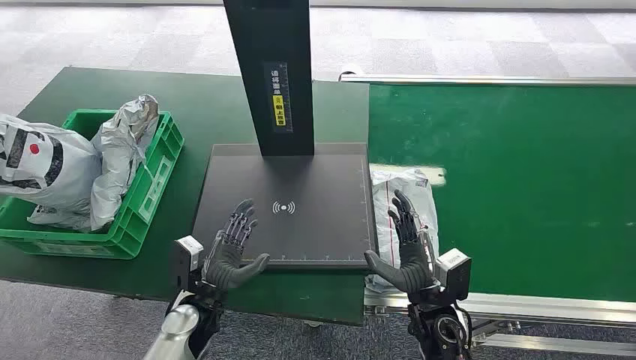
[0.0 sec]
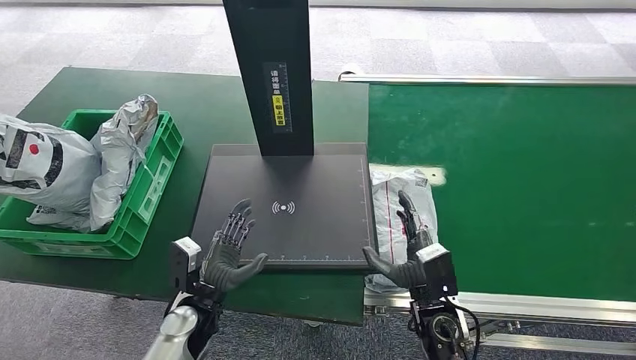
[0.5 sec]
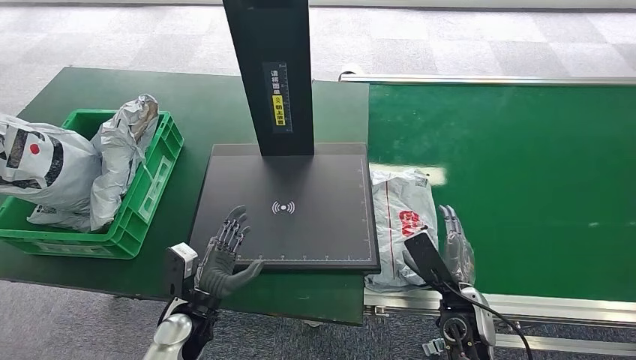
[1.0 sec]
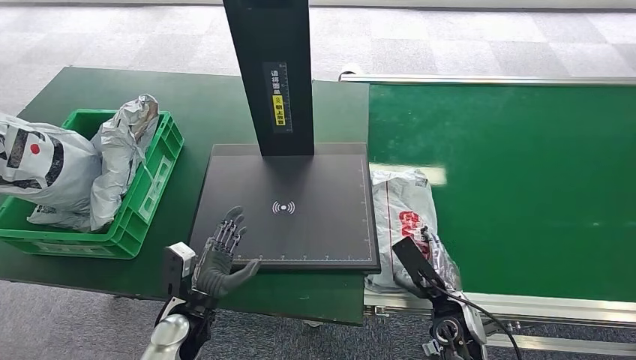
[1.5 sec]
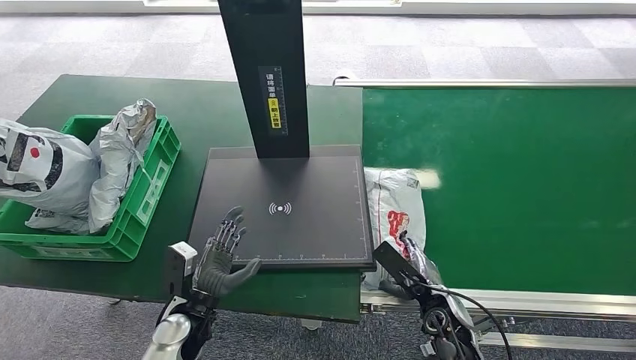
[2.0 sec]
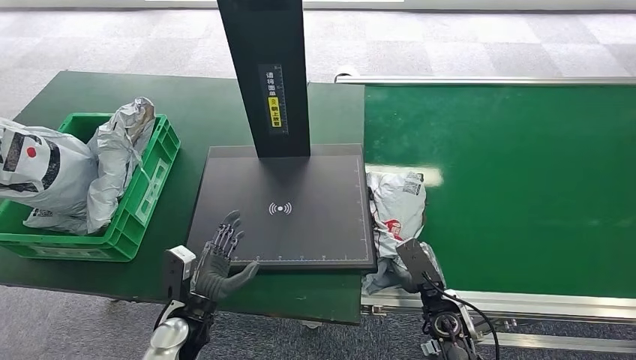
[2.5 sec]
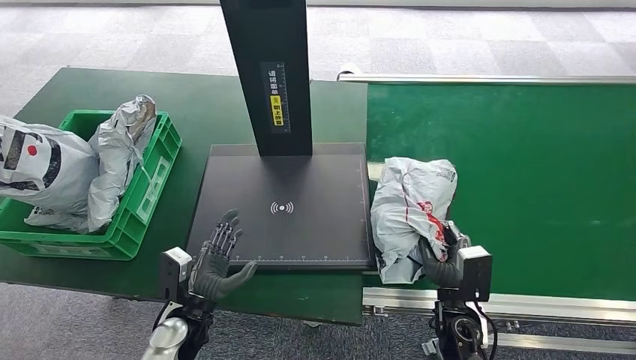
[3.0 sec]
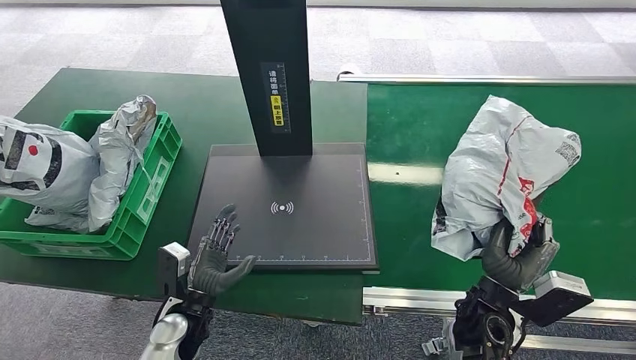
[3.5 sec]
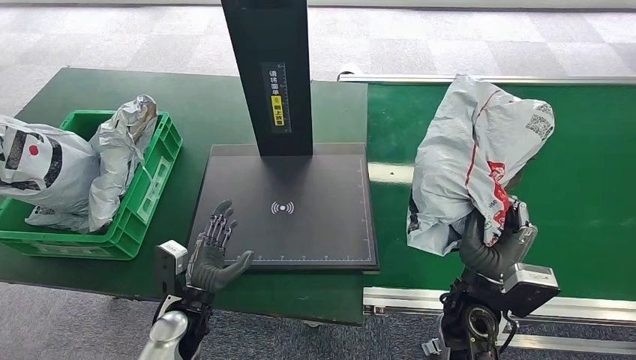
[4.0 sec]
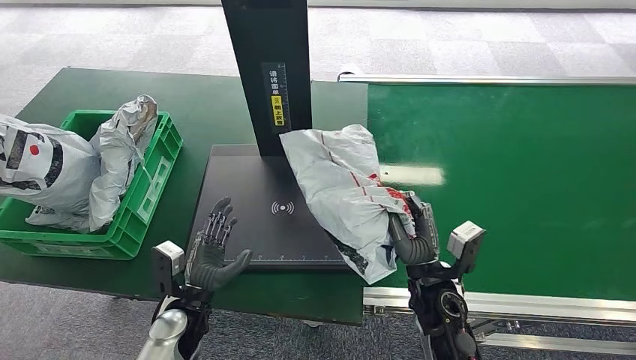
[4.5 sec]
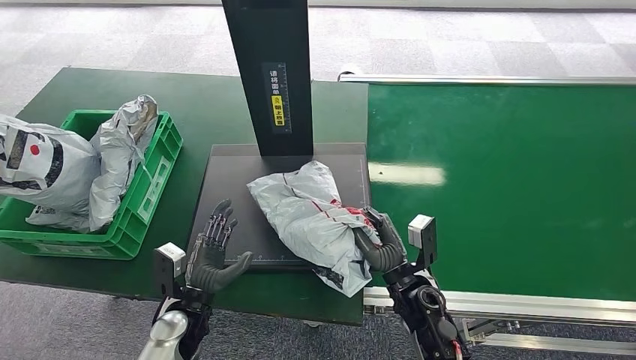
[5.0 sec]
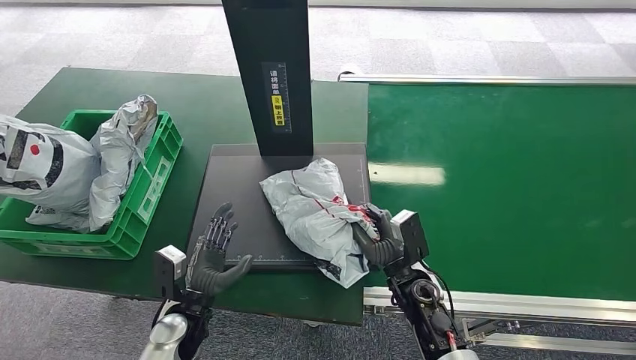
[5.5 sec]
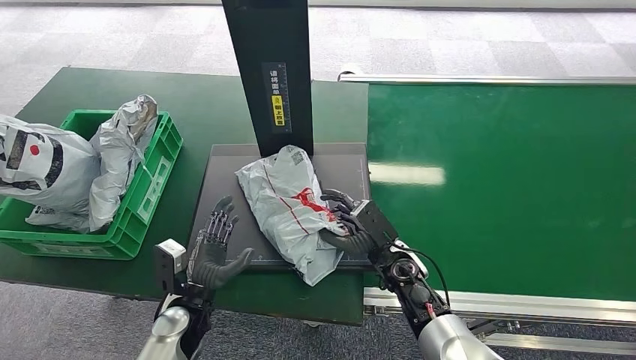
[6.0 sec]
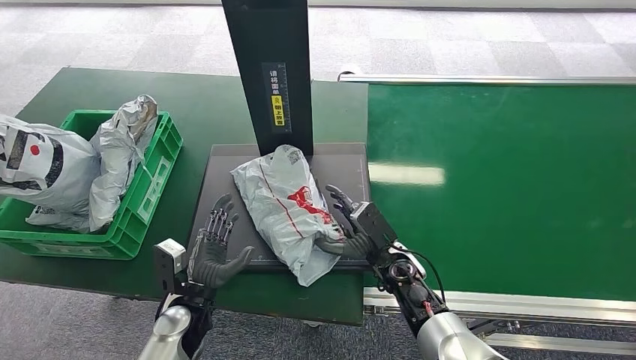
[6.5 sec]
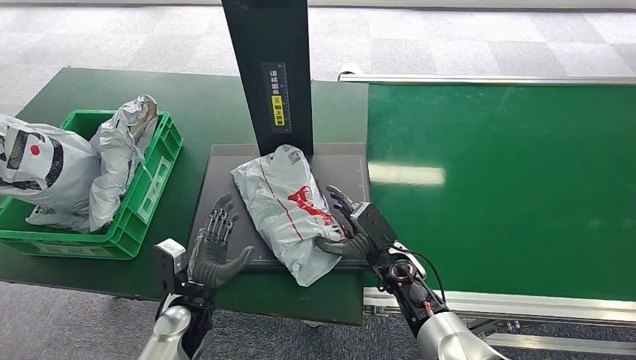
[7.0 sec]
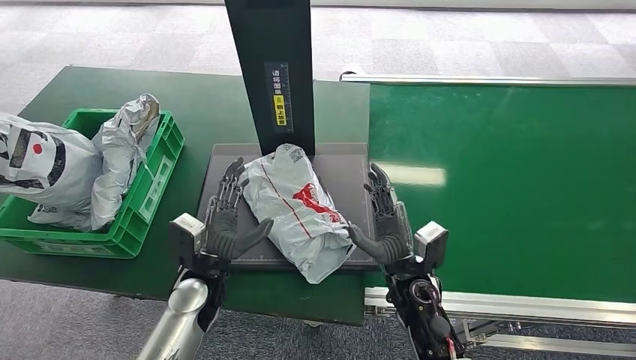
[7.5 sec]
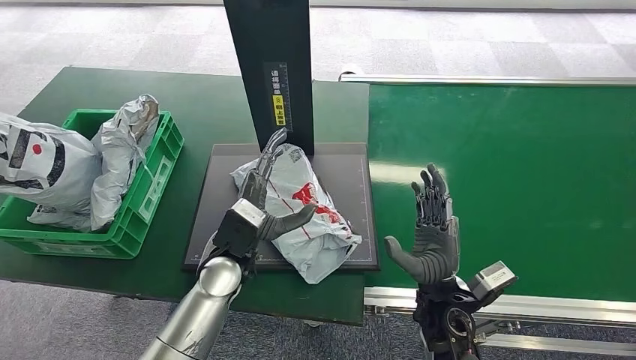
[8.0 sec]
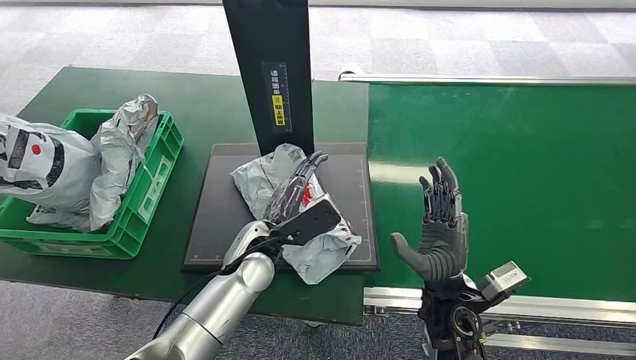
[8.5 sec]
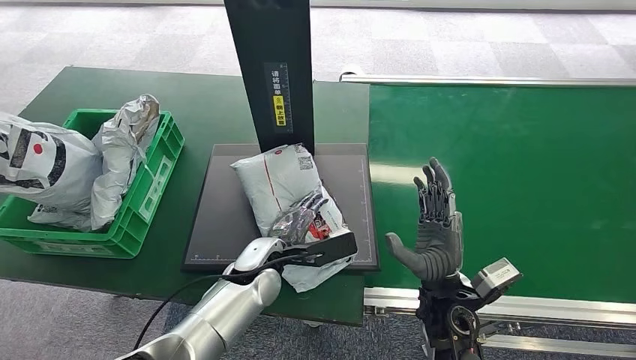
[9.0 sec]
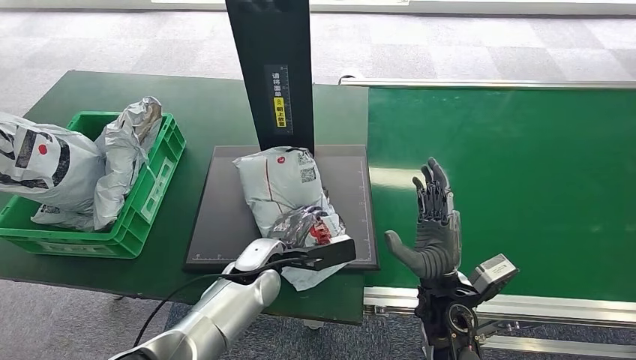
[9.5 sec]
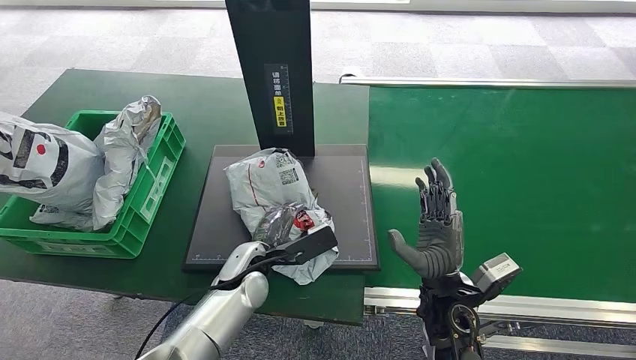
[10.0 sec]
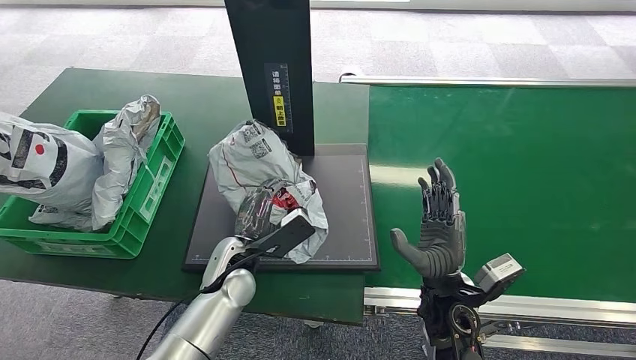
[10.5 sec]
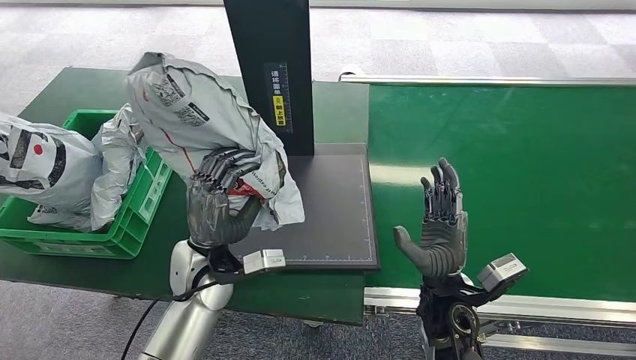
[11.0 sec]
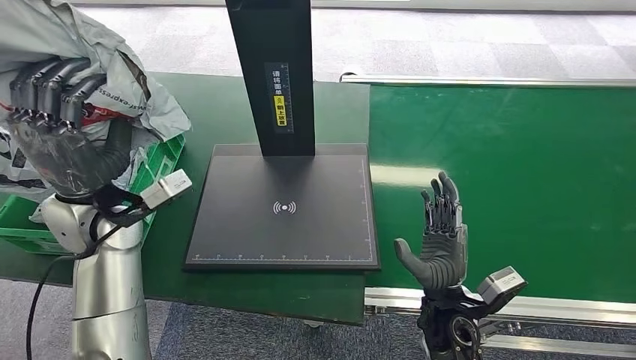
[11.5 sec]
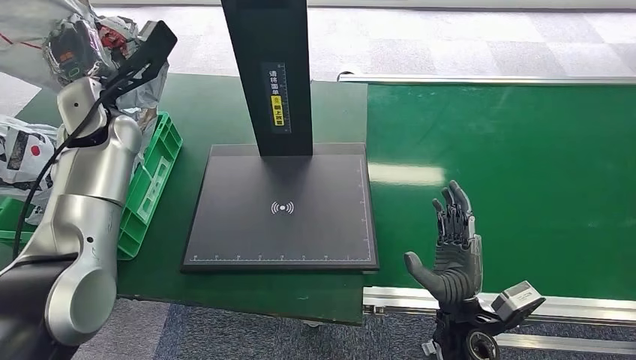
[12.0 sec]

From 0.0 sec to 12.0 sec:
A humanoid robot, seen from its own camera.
Step, from 0.0 sec to 3.5 sec: Pick up the package from the conveyor belt.
Step, from 4.5 sec to 8.0 sec: Place the package onto the inbound machine.
Step, from 8.5 sec to 11.5 sec: Pick up the package from the inbound machine.
From 4.0 sec to 6.0 sec: The right hand travels forward, to the left and downward by approximately 10 cm.
From 6.0 sec to 8.0 sec: The left hand goes roughly 15 cm upward, to the right and forward; the right hand is displaced backward by roughly 10 cm.
From 8.0 sec to 10.0 sec: The left hand shifts some 5 cm downward.

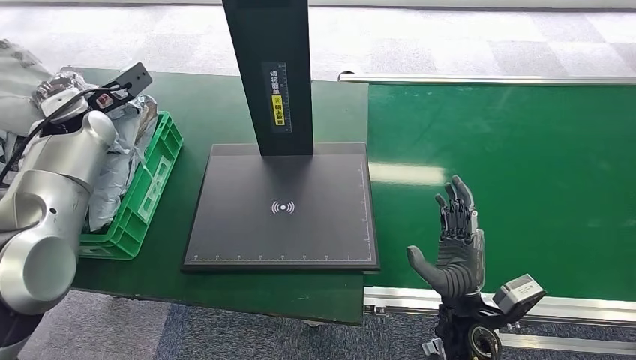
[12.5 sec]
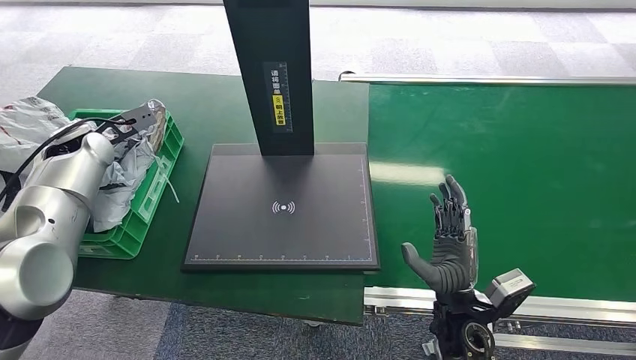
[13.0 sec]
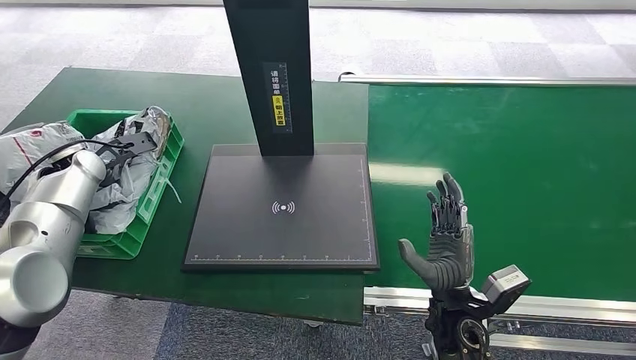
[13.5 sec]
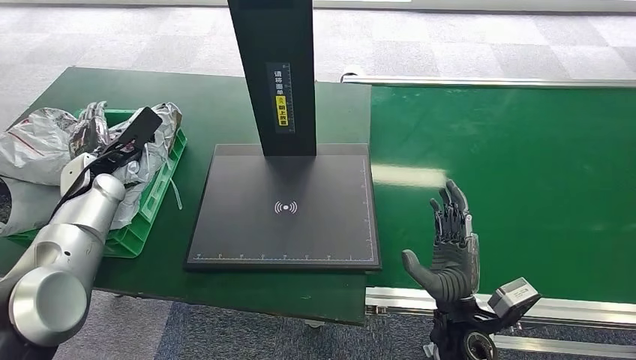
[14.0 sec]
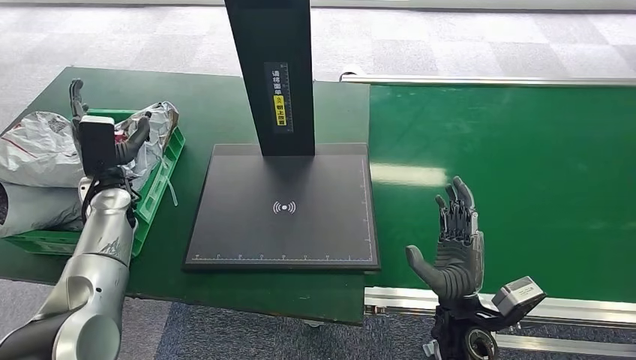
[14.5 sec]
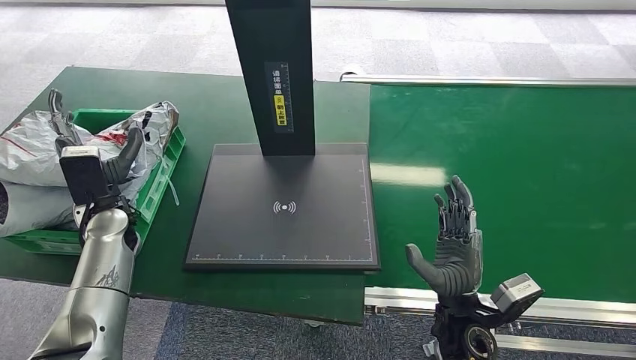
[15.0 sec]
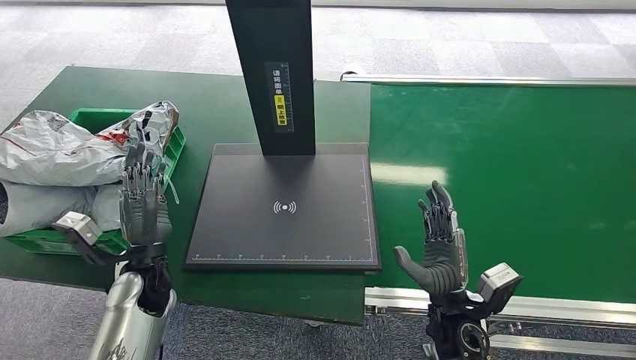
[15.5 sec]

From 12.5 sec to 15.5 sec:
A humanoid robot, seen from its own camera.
Step, from 12.5 sec to 15.5 sec: Place the package into the parcel locker.
From 14.0 sec to 15.5 sec: The left hand goes roughly 20 cm backward, to the right and downward.
